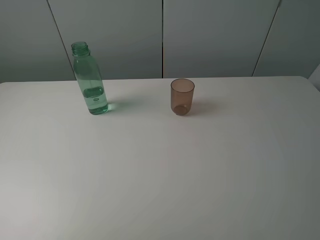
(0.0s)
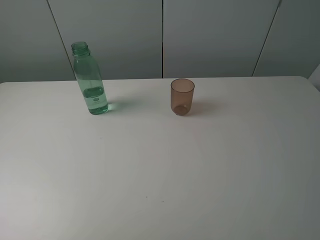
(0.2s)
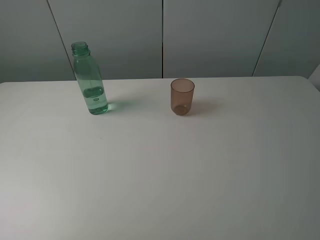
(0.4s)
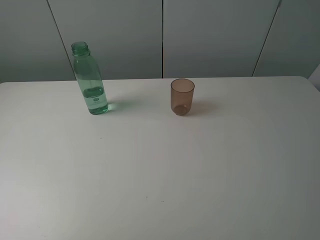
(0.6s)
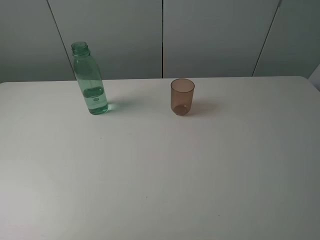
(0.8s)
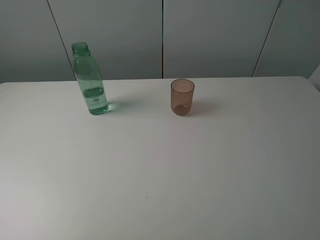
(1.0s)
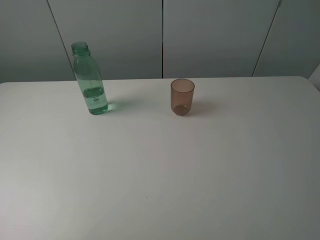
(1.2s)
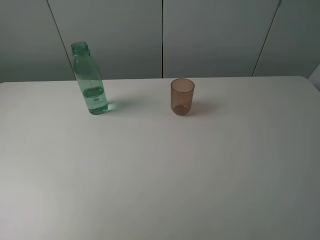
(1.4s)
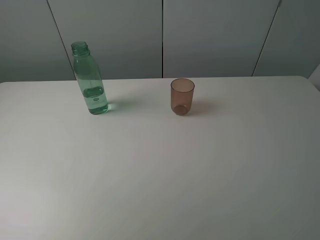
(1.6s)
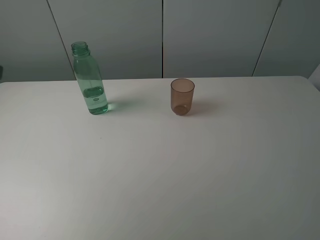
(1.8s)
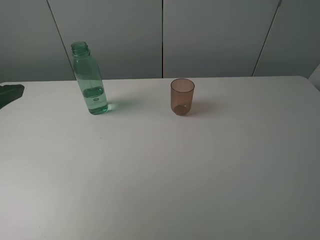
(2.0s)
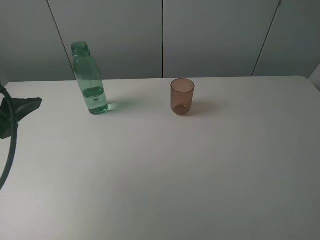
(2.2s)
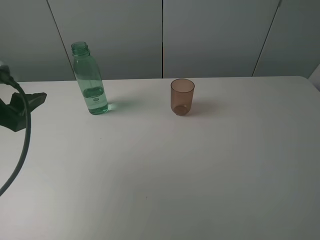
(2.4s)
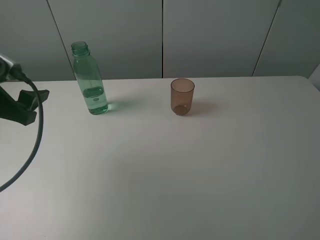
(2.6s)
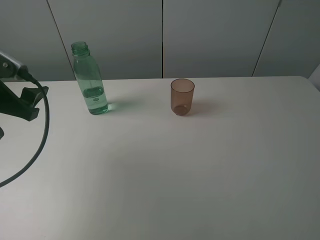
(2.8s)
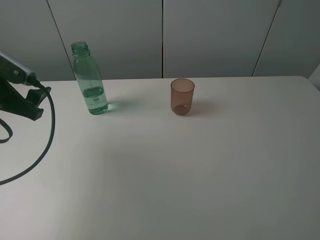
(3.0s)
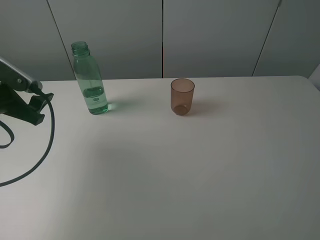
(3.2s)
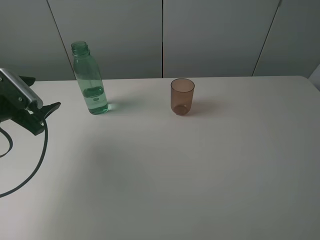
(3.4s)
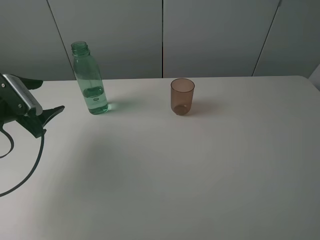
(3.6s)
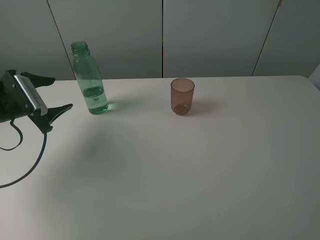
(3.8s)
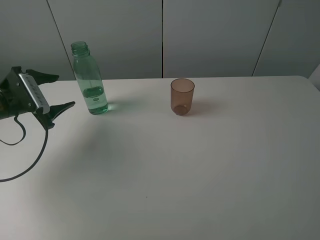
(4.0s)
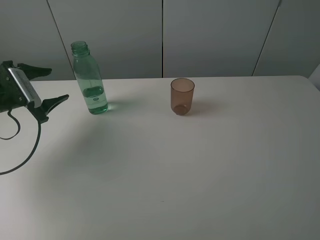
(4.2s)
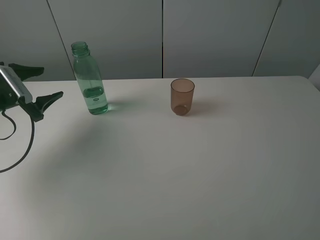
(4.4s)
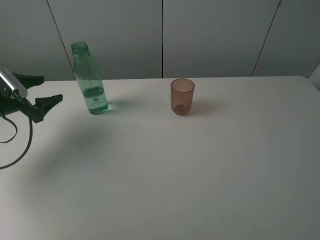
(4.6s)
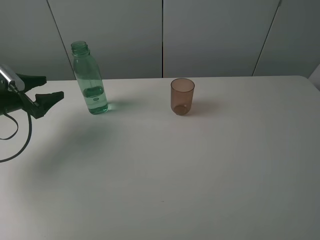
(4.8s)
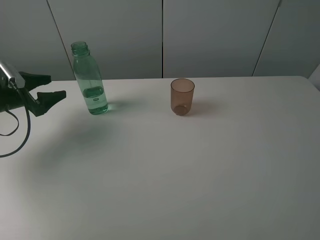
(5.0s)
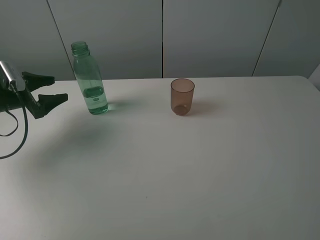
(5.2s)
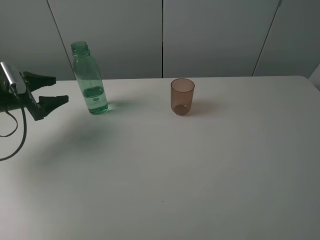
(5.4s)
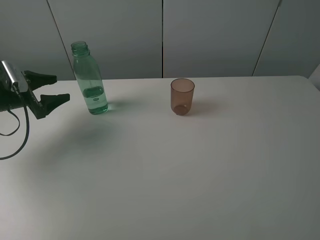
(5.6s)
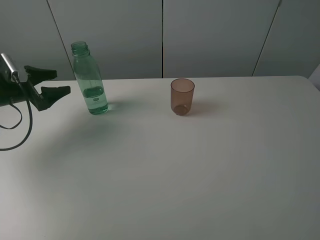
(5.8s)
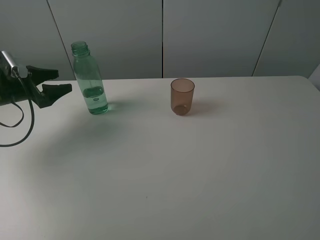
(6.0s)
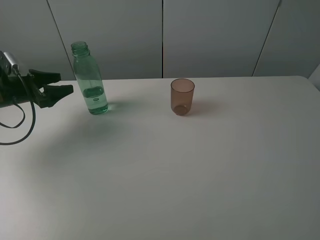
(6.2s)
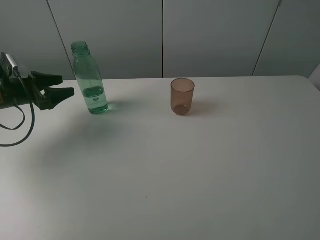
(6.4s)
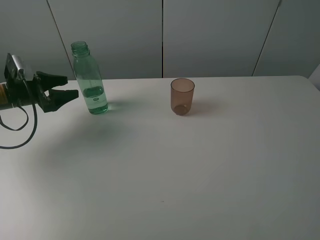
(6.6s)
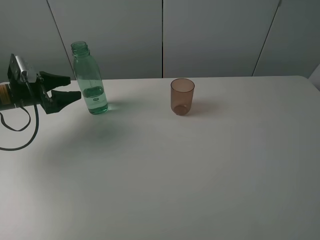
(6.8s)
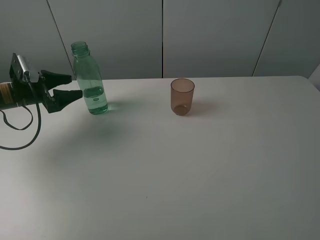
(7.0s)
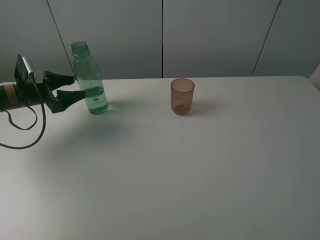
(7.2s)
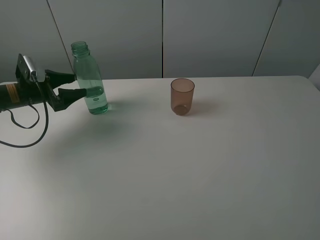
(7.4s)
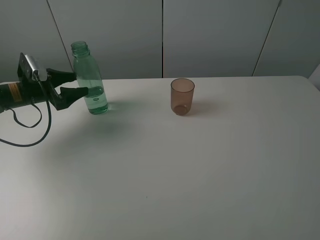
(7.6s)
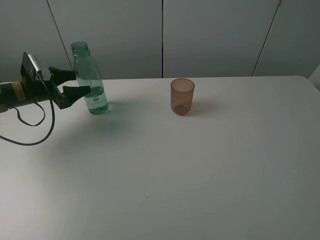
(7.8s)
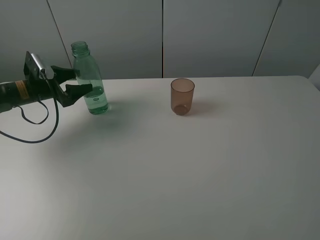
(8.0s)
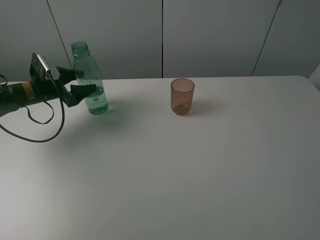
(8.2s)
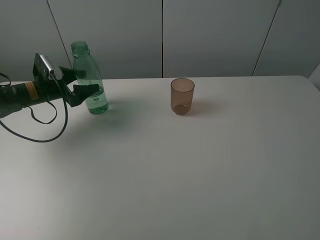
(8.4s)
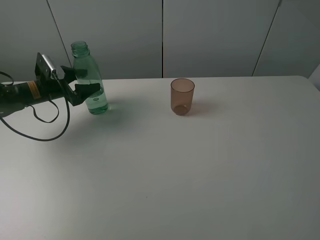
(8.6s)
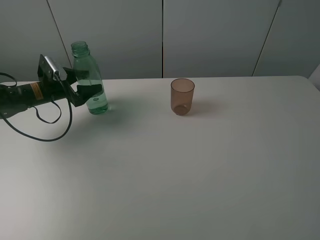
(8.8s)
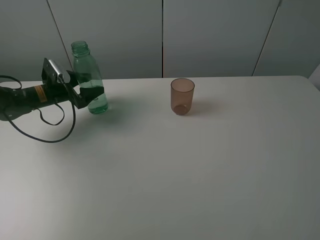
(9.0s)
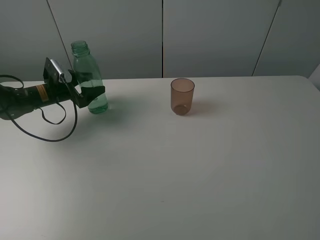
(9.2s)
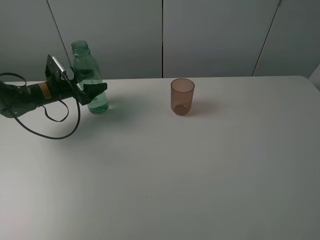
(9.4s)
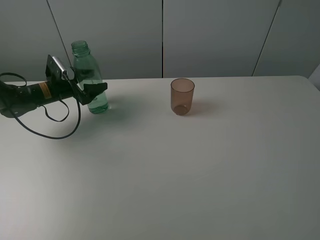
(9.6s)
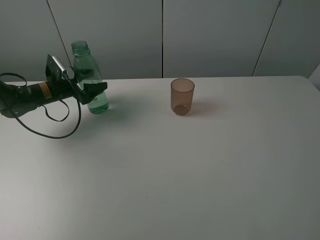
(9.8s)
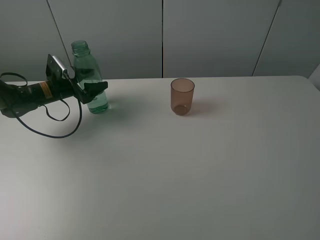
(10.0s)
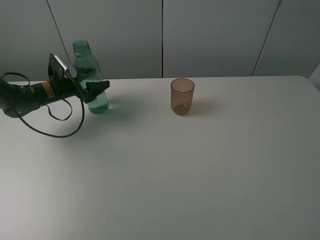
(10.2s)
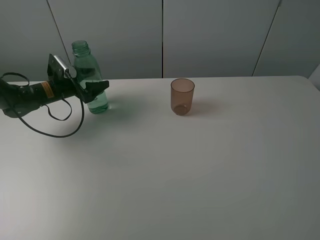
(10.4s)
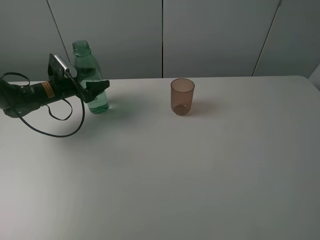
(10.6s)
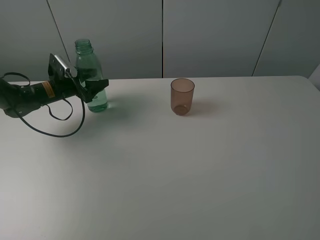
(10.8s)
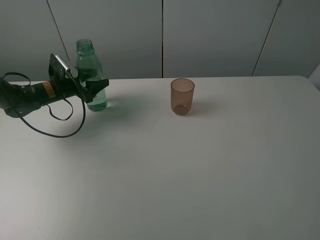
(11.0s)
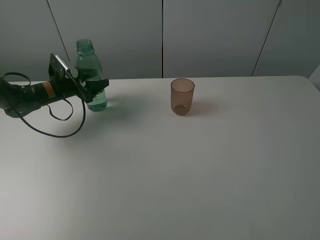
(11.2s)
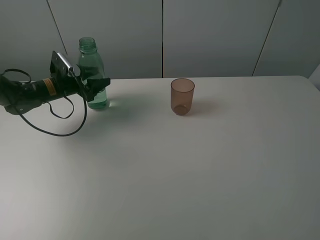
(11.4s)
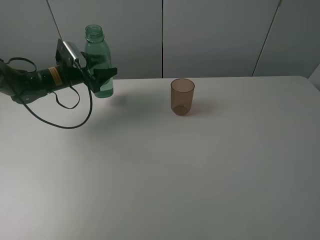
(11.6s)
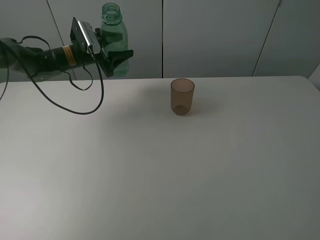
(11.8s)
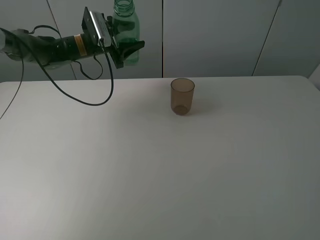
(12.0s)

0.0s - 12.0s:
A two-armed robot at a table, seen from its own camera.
Task of the whole recording: pick up the bottle filled with water and pour it into the pink cup.
Step, 0.0s - 11.0s: Grasp the green bottle with the left gripper.
1.6s - 3.0s: The left gripper is displaced downward and forward by approximately 20 cm.
3.0s - 4.4s: The left gripper moves forward, downward and to the left, approximately 15 cm.
6.0s - 7.6s: There are only small adjustments of the grippers.
7.6s - 9.0s: The left gripper changes place by approximately 5 cm.
9.0s - 10.4s: The grippers make only small movements.
10.4s - 12.0s: The left gripper goes about 15 cm to the right, upward and forward, and closes.

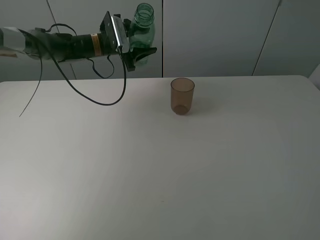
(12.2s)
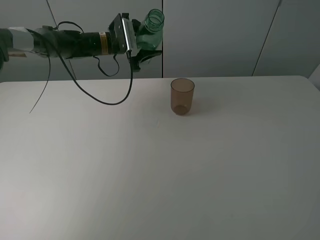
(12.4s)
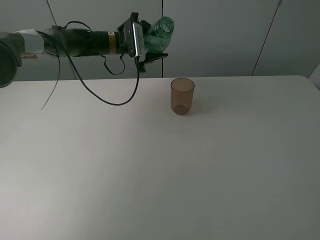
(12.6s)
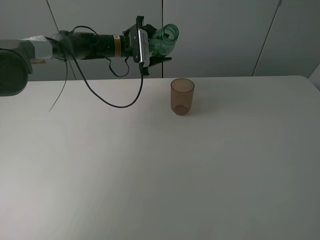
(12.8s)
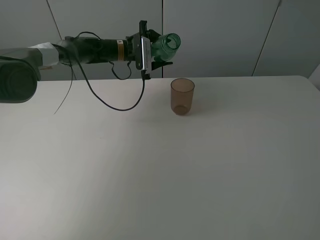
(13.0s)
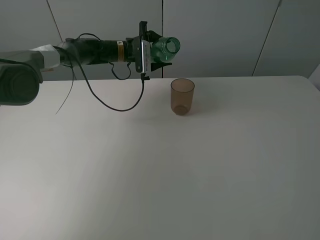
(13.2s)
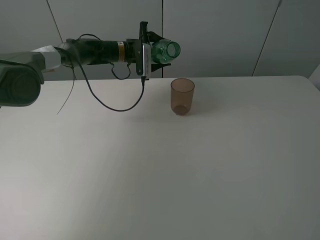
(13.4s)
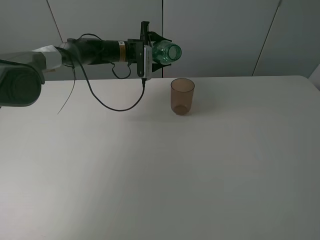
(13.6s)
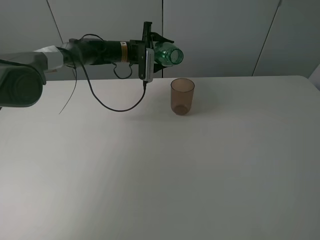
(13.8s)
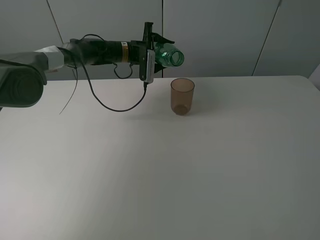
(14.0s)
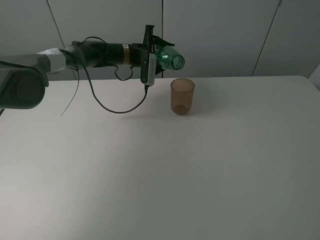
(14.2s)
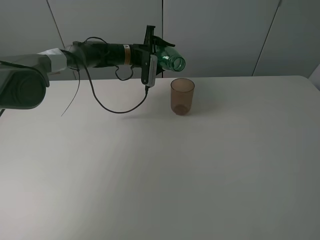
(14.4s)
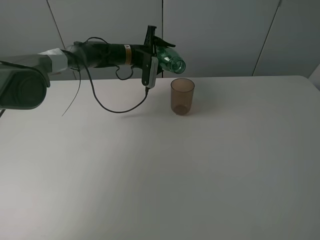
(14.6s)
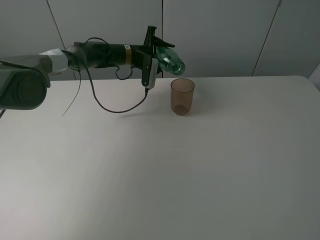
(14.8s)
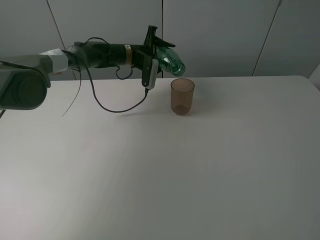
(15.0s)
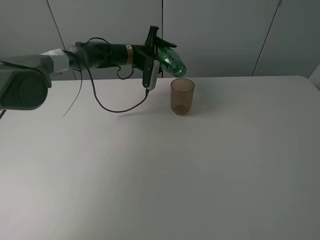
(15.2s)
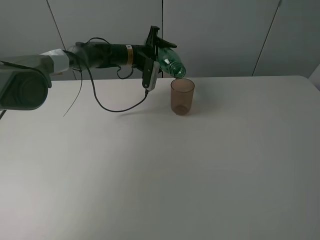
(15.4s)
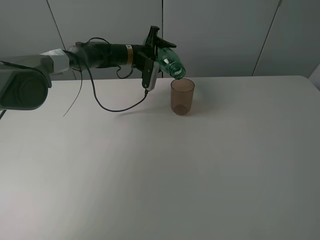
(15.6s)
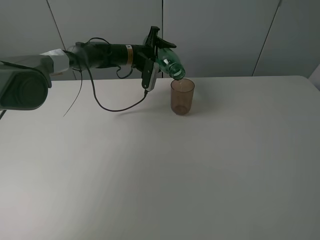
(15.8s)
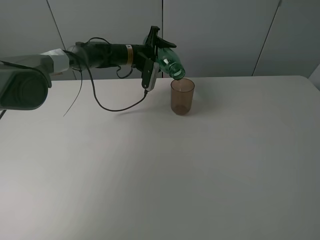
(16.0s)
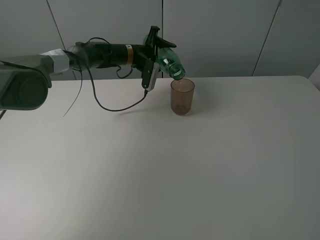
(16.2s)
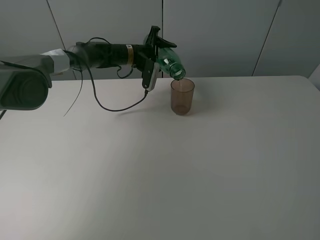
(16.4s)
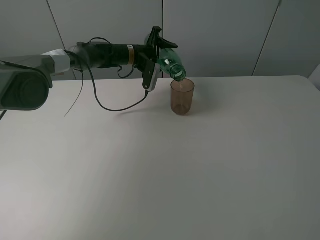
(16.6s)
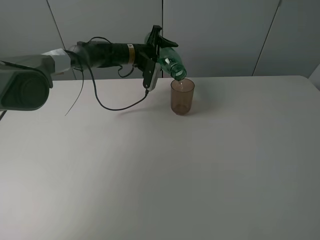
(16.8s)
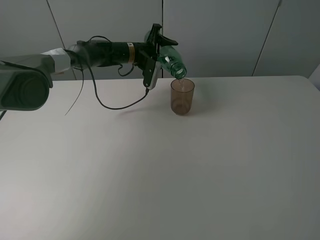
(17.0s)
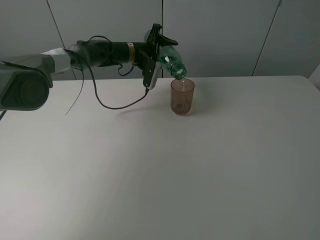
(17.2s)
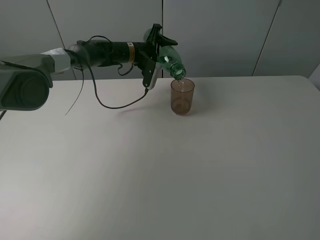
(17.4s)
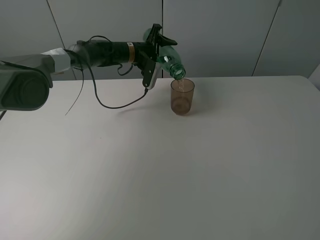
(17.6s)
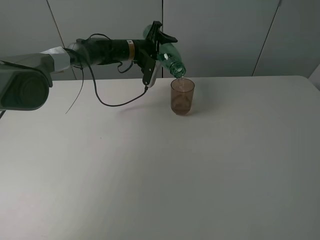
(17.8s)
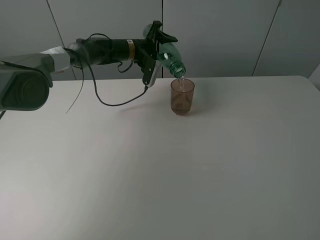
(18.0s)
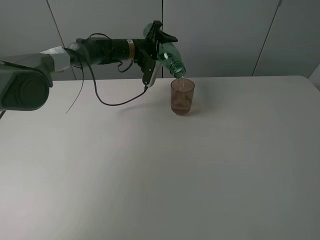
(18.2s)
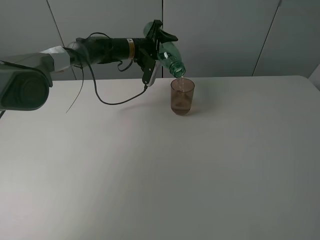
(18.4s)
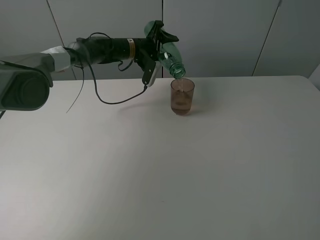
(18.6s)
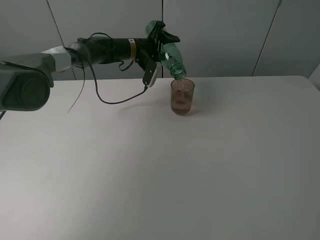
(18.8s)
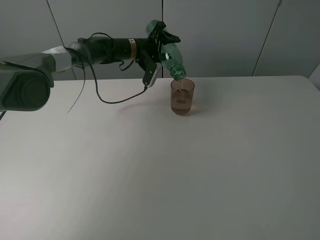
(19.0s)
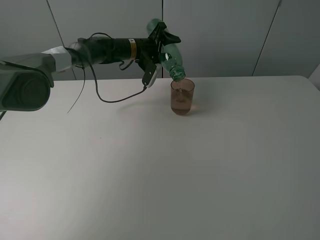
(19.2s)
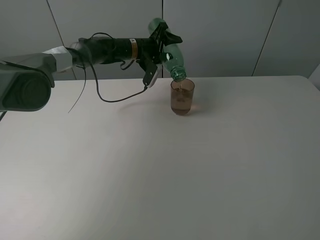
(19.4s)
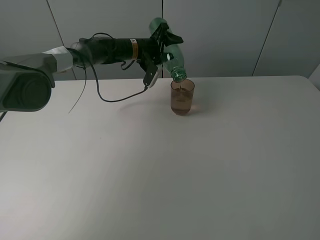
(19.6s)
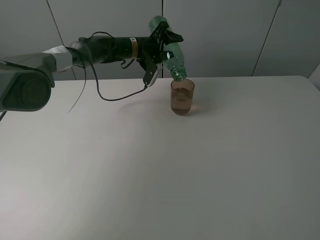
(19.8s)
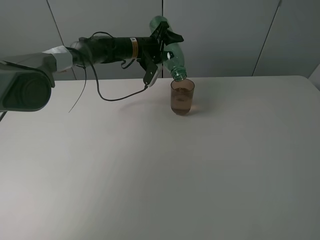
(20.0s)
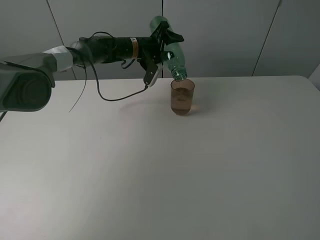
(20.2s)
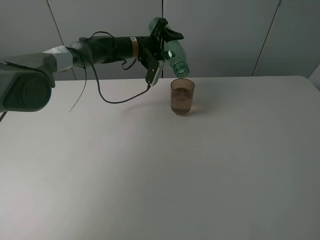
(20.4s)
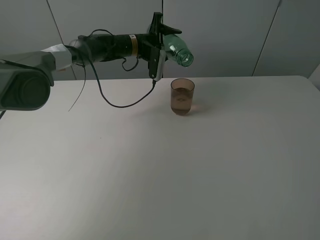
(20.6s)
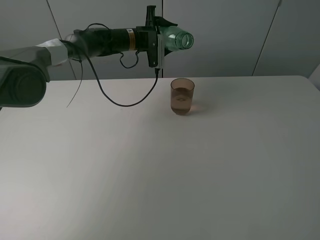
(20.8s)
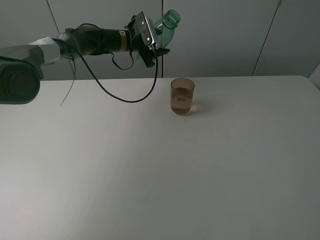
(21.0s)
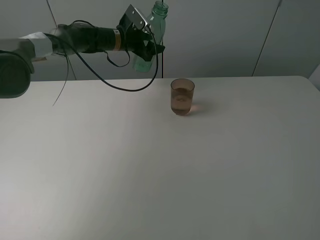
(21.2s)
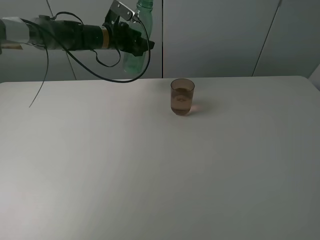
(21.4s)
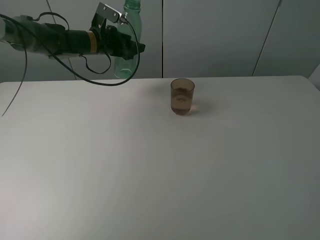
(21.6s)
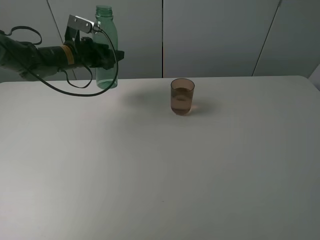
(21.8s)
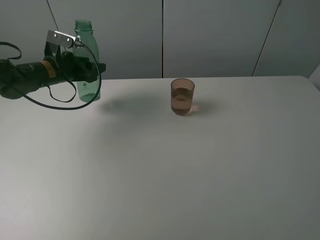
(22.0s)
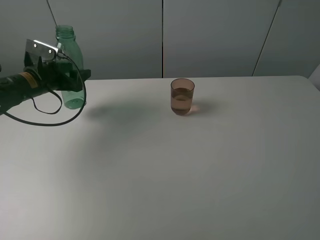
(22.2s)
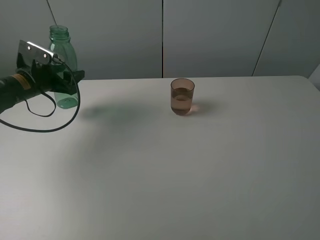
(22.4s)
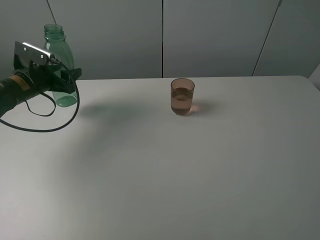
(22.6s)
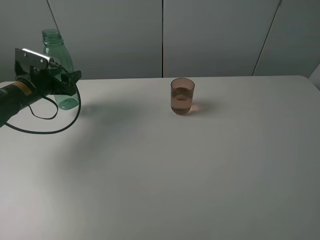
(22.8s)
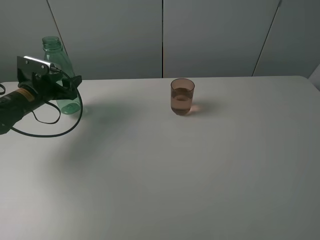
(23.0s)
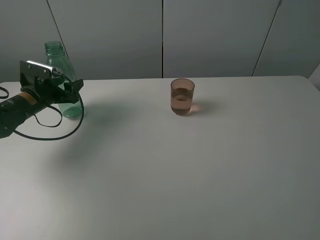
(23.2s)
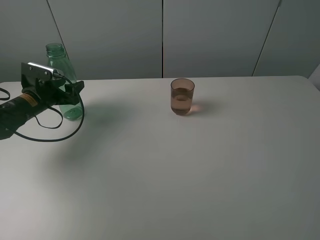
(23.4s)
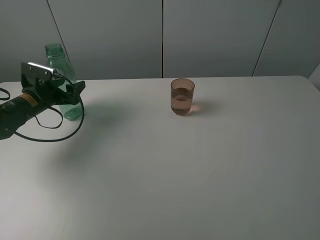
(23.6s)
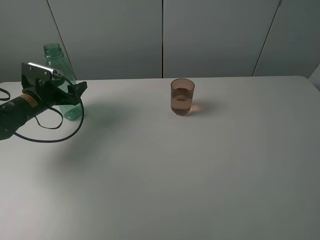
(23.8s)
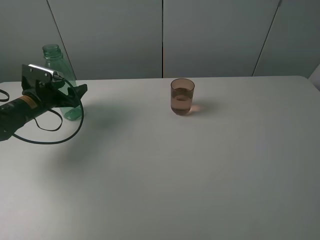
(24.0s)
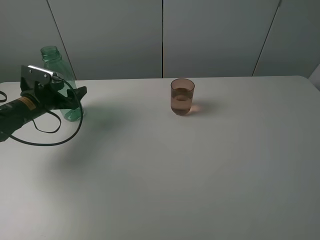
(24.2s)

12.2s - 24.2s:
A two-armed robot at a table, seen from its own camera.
Task of the whole recording: pick up the bottle filled with water and pour it into the pink cup.
Step, 12.2s - 20.6s: Pour water from green bottle to pink cup with the left gripper.
12.2s - 13.8s: The left gripper is displaced to the right by some 5 cm.
13.8s - 15.2s: The grippers stay close to where they were, moving slightly.
15.2s - 18.2s: There are only small adjustments of the grippers.
18.2s - 19.8s: There are only small adjustments of the grippers.
19.8s - 21.2s: The left gripper shifts approximately 5 cm to the left.
21.2s - 22.6s: The left gripper travels to the left and backward by some 25 cm.
22.6s - 24.2s: The left gripper opens its fingers.
